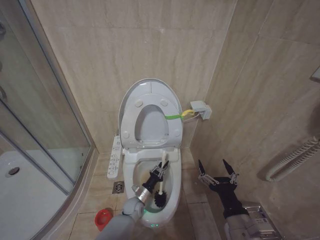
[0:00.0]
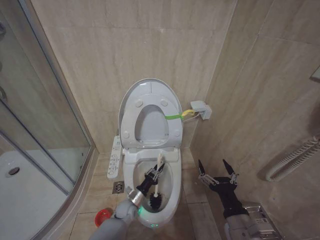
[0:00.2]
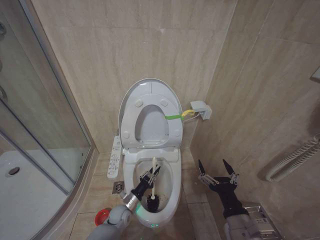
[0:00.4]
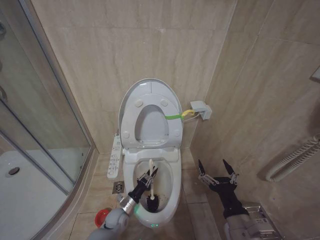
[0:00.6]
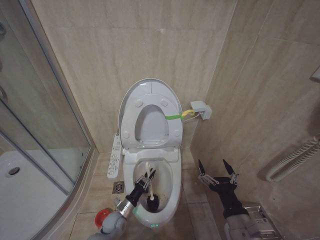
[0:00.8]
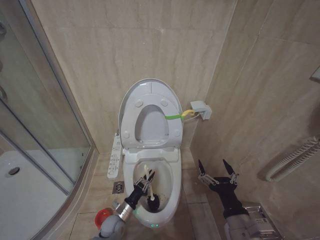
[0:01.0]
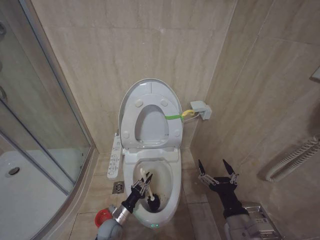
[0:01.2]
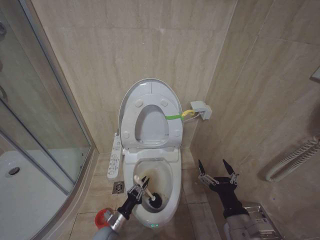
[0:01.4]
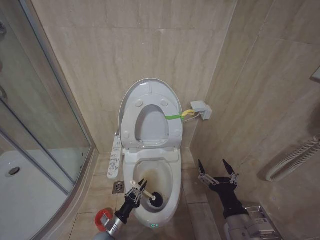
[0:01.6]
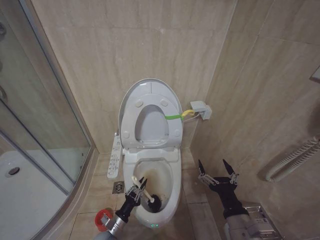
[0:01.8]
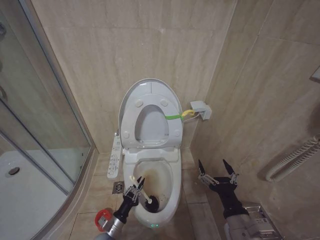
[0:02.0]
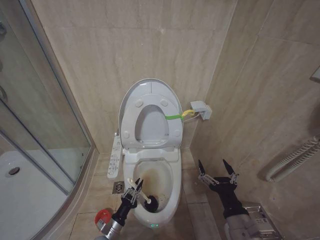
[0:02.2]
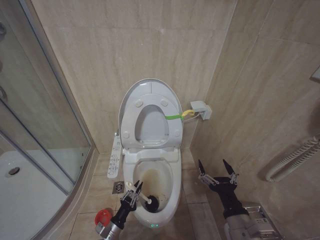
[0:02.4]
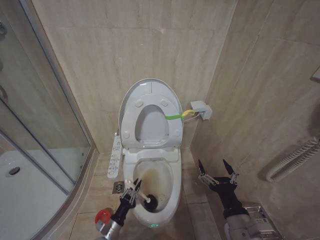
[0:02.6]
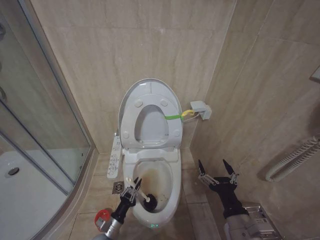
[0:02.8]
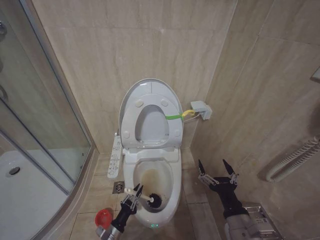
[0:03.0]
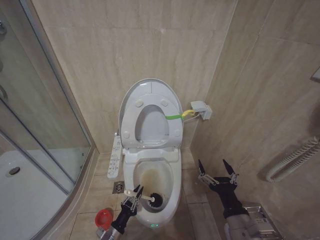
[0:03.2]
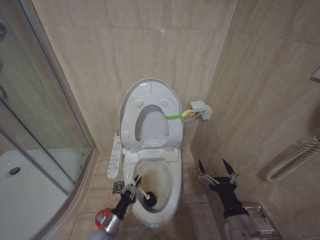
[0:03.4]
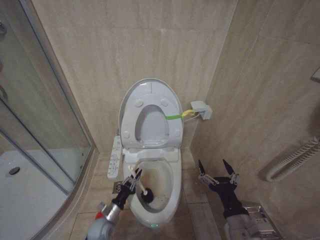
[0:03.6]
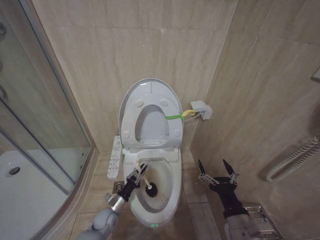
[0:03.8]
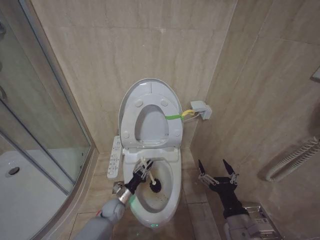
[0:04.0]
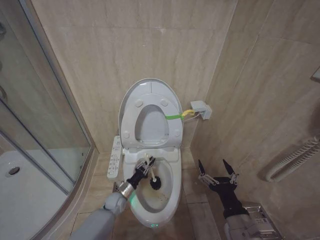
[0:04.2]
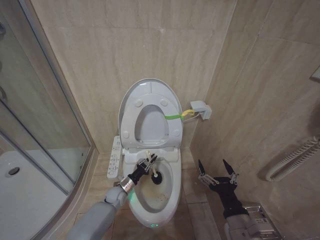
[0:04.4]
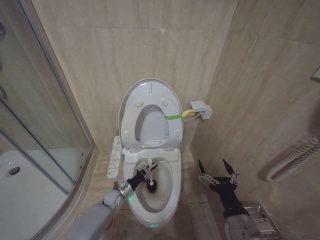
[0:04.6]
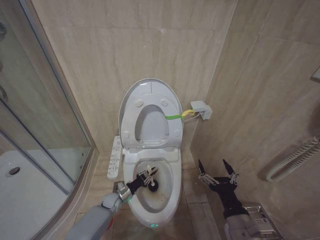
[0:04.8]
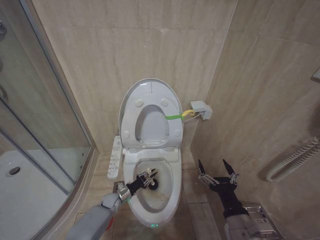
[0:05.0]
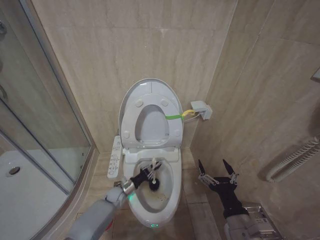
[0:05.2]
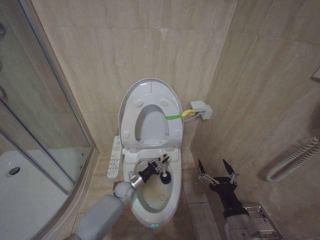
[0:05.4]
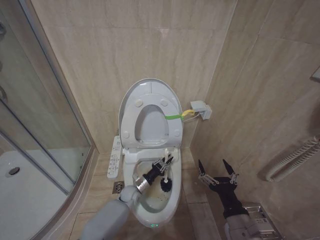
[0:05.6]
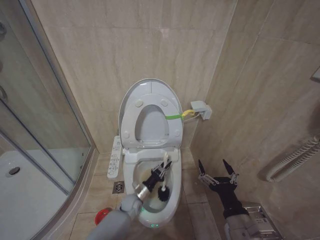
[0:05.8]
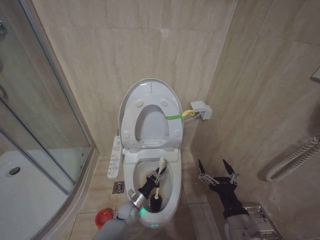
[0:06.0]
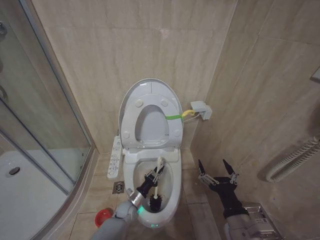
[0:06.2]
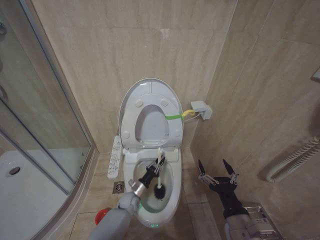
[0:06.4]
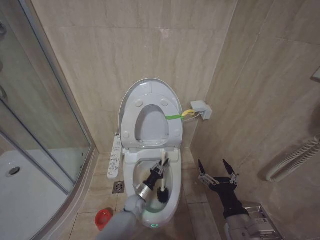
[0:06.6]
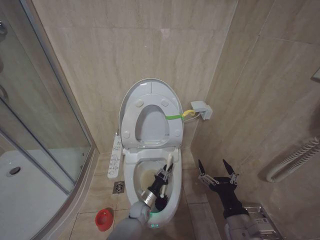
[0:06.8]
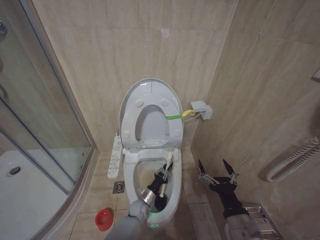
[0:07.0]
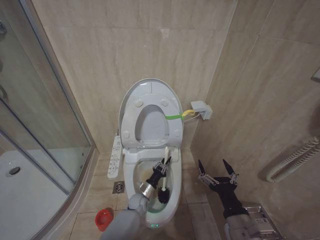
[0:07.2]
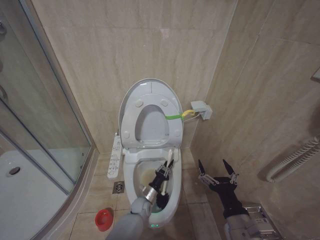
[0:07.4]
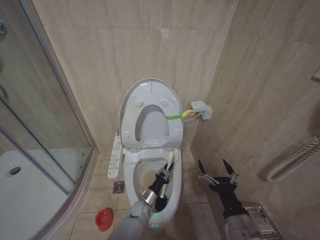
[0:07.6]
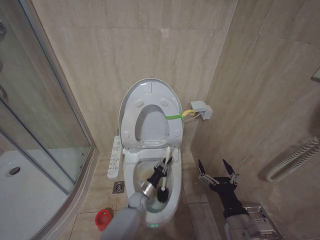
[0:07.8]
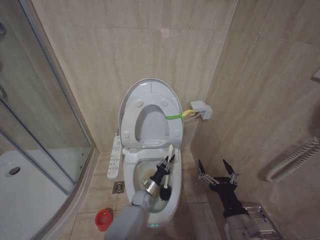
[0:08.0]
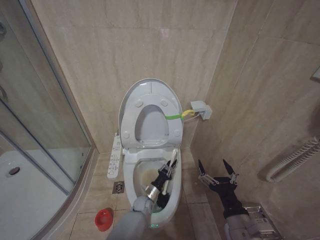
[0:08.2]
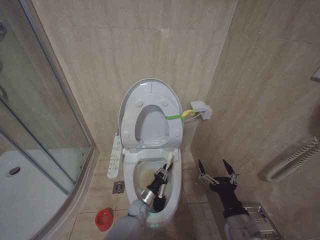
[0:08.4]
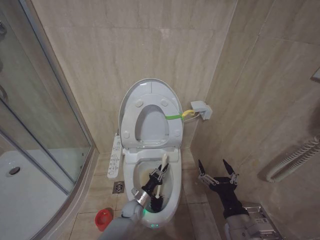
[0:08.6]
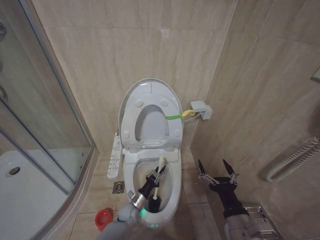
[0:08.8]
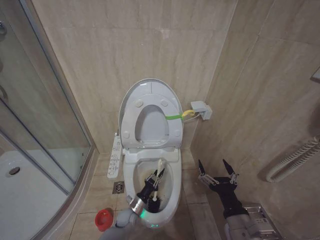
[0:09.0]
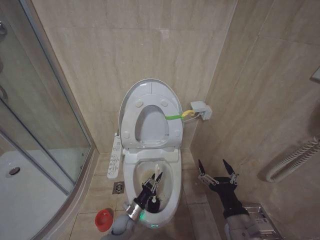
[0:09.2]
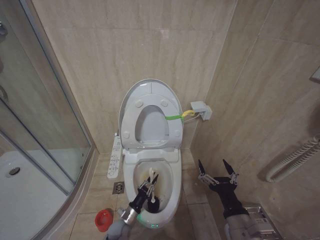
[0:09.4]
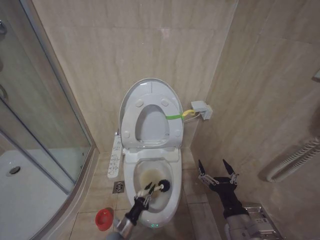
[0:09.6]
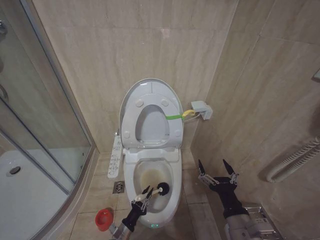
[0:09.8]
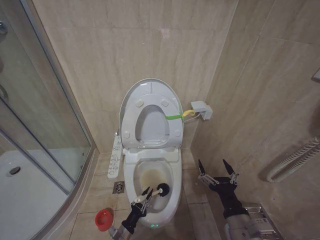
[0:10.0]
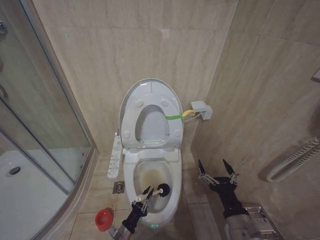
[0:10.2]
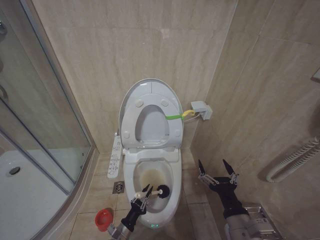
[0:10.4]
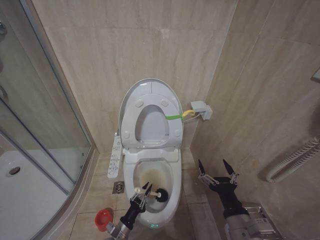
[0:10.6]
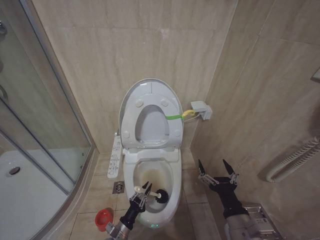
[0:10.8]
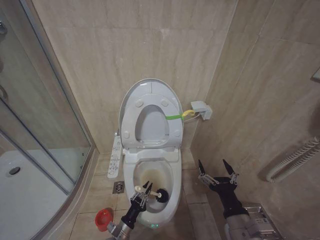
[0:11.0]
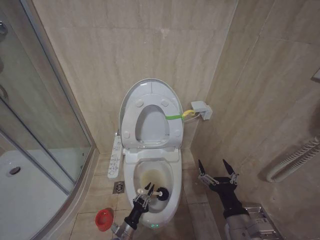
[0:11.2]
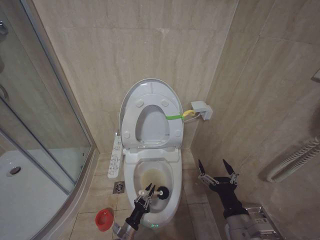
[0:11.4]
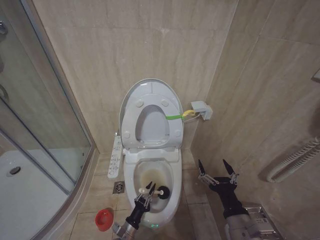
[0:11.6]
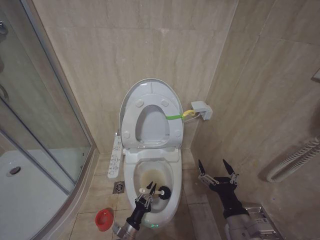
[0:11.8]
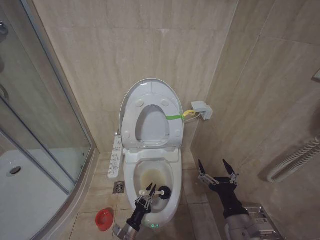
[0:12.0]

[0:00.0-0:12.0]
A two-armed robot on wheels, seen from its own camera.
Task of the whole recording: Open the toilet lid, clean the toilet bowl with a toilet brush, close the toilet lid, and flush.
0:00.0 to 0:01.6: The left gripper shifts some 15 cm backward and to the left.
0:01.6 to 0:03.0: The grippers make only small movements.
0:03.0 to 0:04.4: The left gripper travels forward by about 20 cm.
0:04.4 to 0:06.0: The left gripper travels to the right by some 5 cm.
0:06.0 to 0:07.6: The left gripper travels to the right by about 5 cm.
0:07.6 to 0:09.0: The left gripper heads to the left, covering approximately 5 cm.
0:09.0 to 0:10.4: The left gripper goes about 15 cm backward and to the left.
0:10.4 to 0:12.0: The grippers move only a little.

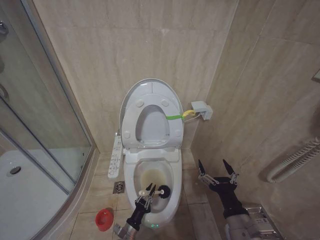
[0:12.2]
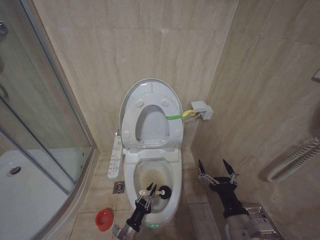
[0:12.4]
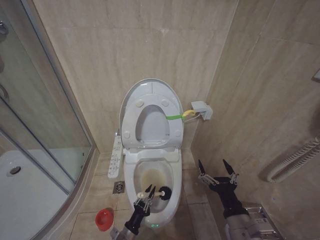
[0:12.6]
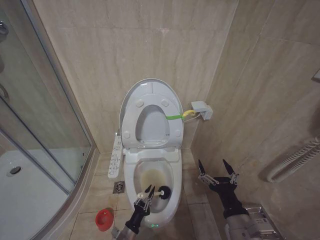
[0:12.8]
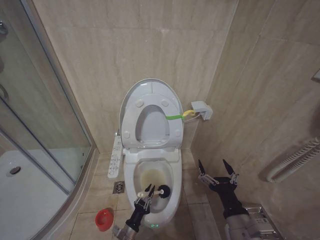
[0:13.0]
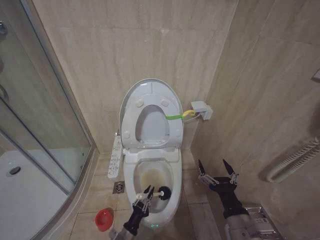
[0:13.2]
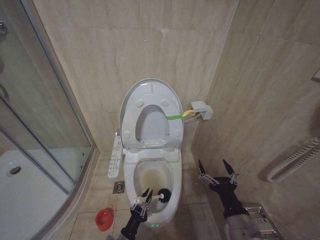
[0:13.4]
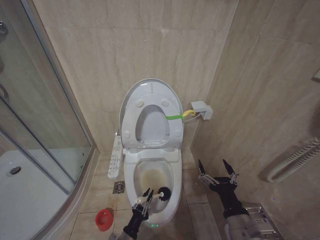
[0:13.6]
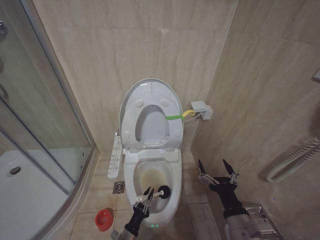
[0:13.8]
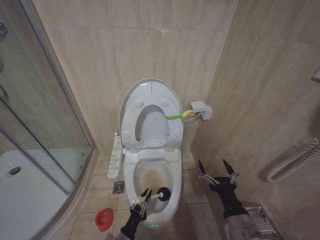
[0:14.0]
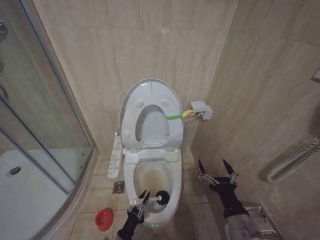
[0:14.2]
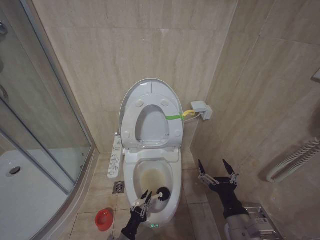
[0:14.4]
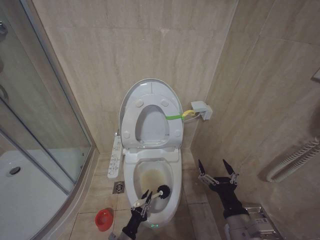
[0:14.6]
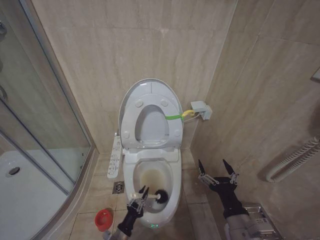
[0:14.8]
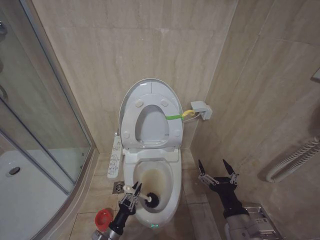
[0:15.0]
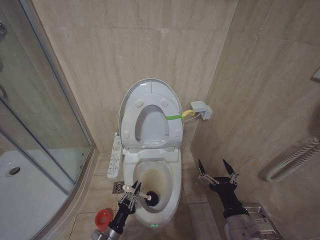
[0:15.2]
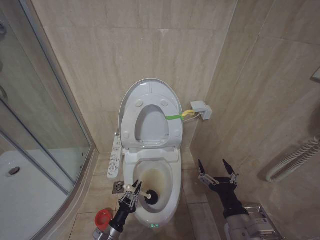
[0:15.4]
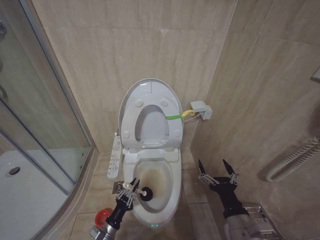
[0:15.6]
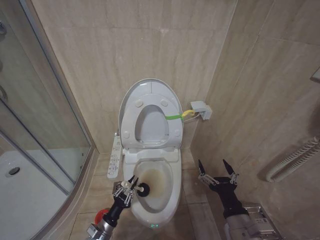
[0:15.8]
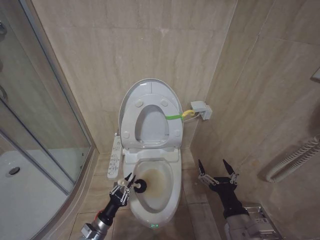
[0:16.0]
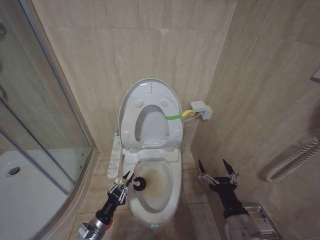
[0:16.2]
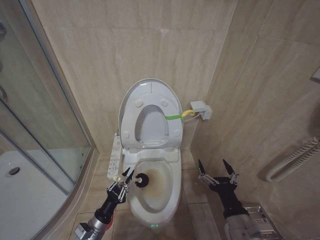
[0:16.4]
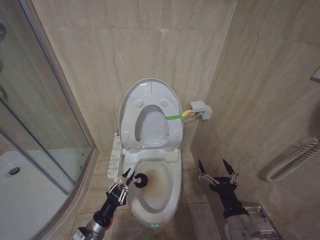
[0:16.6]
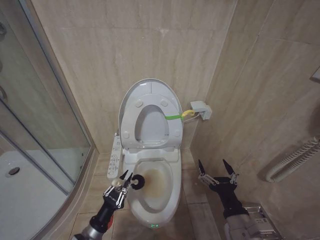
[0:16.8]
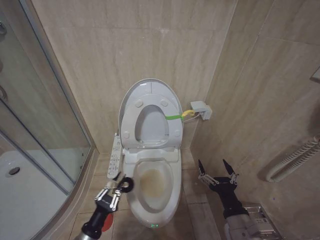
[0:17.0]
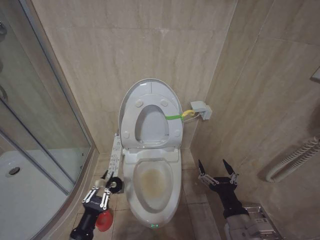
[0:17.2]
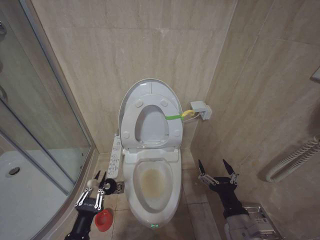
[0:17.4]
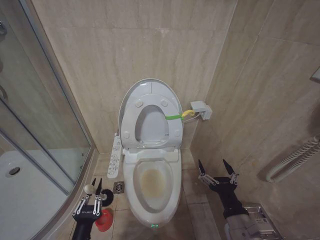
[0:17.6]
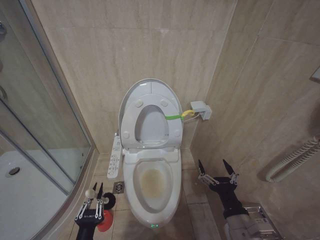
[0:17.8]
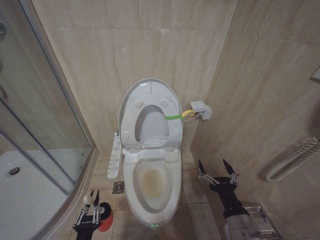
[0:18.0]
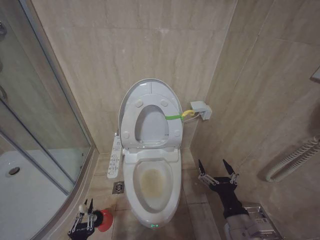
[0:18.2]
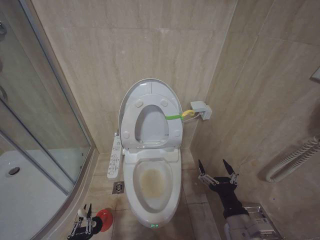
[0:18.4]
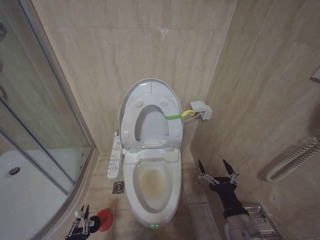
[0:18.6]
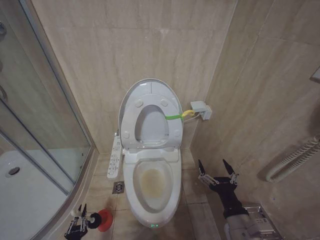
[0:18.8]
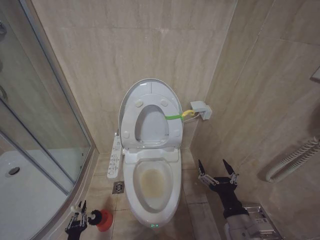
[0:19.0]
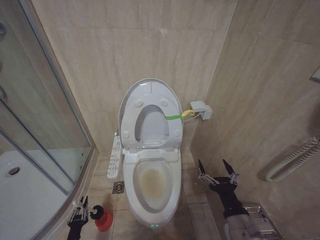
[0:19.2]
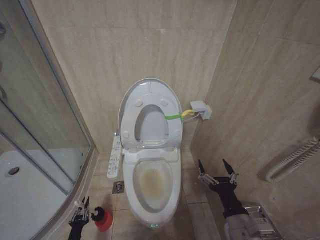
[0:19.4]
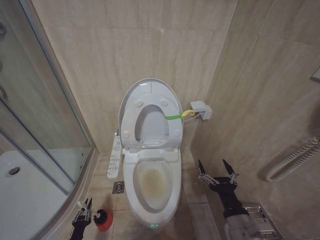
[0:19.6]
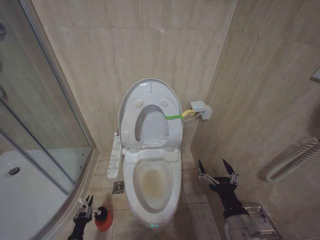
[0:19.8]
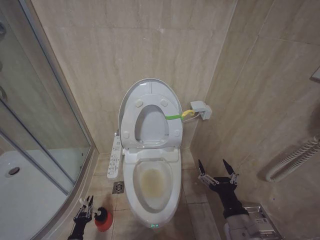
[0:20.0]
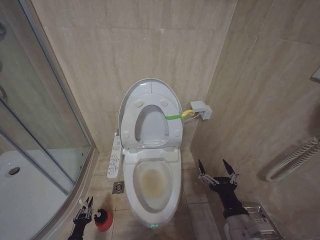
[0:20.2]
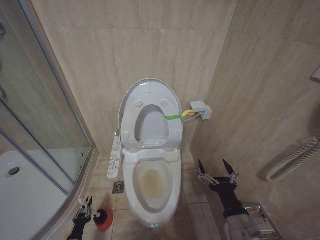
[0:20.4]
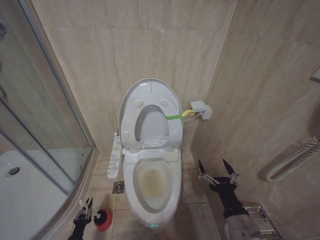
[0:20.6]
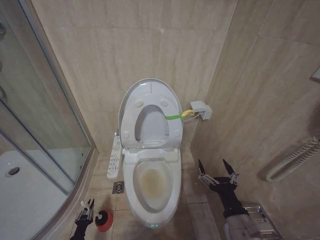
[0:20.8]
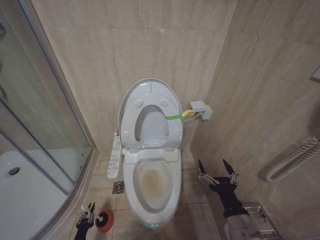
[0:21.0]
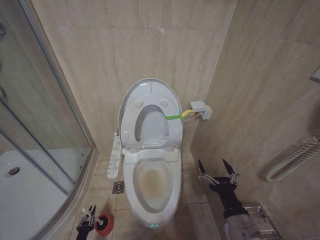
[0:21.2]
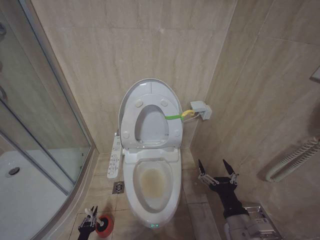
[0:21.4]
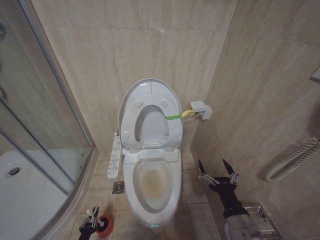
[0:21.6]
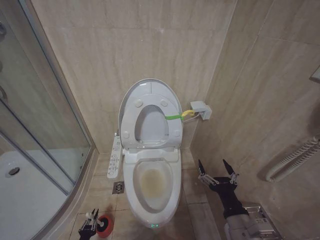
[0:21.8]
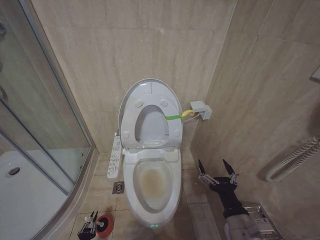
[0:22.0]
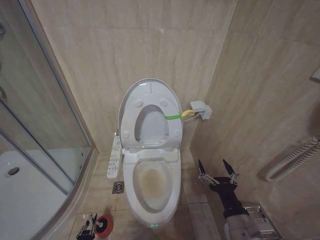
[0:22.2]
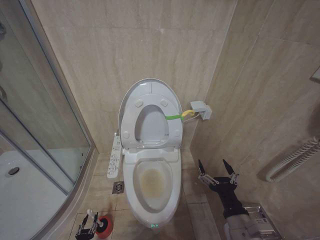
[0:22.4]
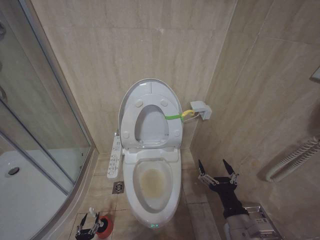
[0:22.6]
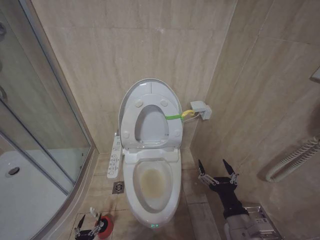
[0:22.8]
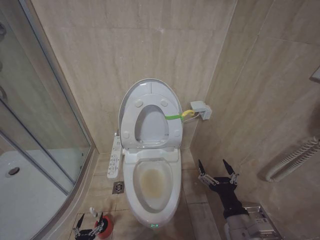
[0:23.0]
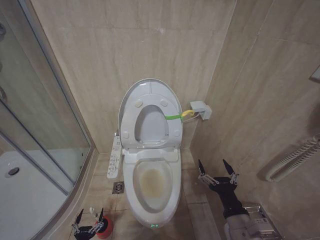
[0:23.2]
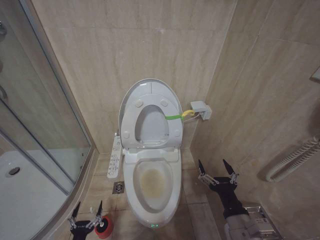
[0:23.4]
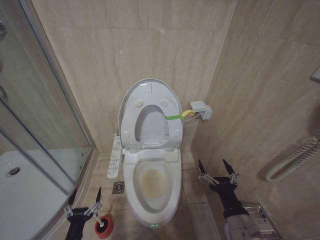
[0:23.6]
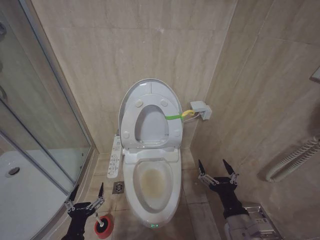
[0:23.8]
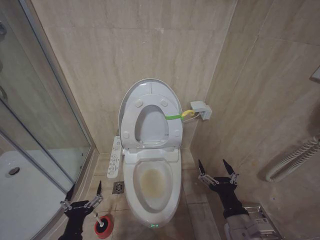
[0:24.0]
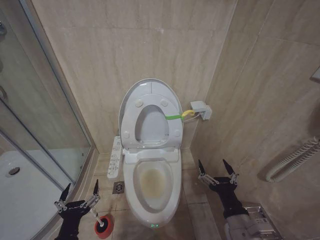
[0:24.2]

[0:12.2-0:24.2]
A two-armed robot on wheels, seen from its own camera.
Task of the whole recording: Open the toilet lid, clean the toilet bowl with a toilet brush, close the toilet lid, and flush.
0:13.8 to 0:15.2: The left gripper travels to the left by about 5 cm.
0:15.2 to 0:16.6: The left gripper shifts about 10 cm upward.
0:16.6 to 0:18.2: The left gripper shifts approximately 10 cm backward.
0:18.2 to 0:19.8: The left gripper travels downward, to the left and forward by about 25 cm.
0:19.8 to 0:21.2: The grippers move only a little.
0:22.6 to 0:24.2: The left gripper shifts approximately 35 cm upward, and opens.
